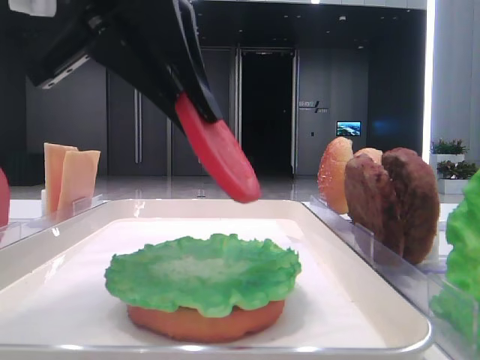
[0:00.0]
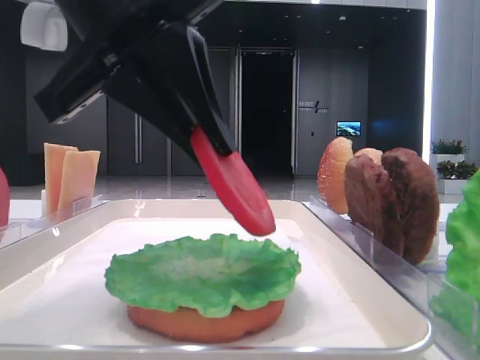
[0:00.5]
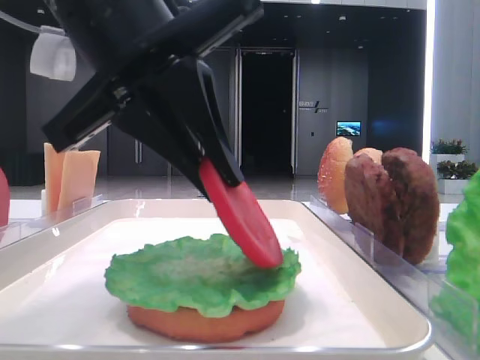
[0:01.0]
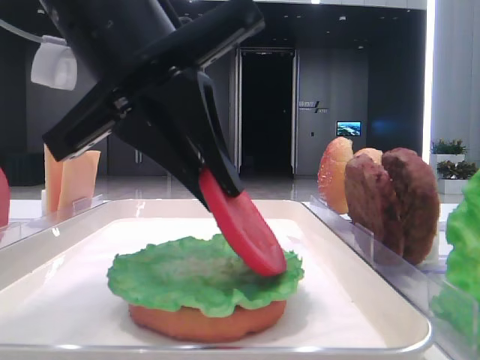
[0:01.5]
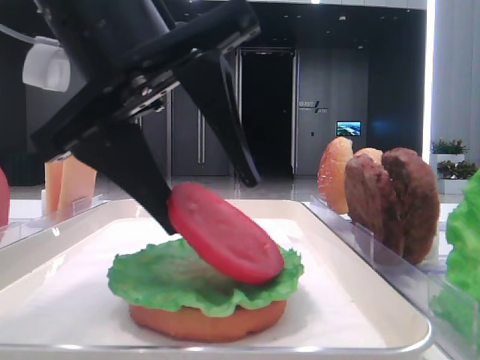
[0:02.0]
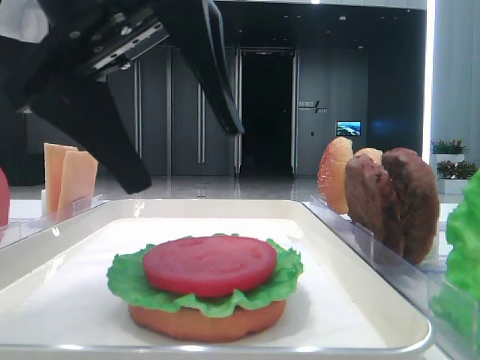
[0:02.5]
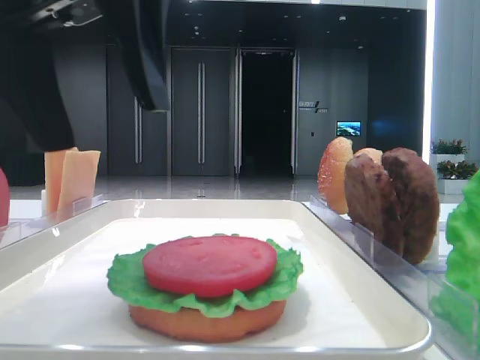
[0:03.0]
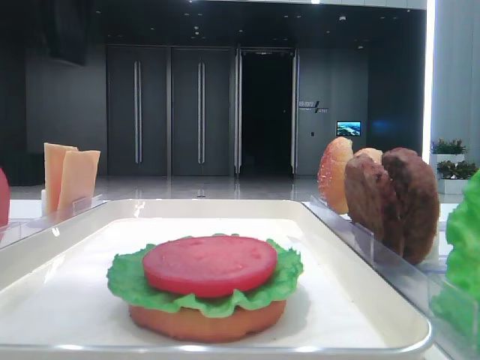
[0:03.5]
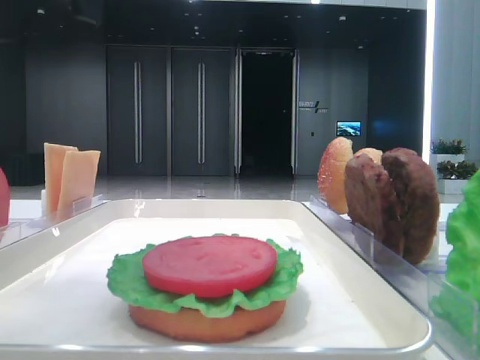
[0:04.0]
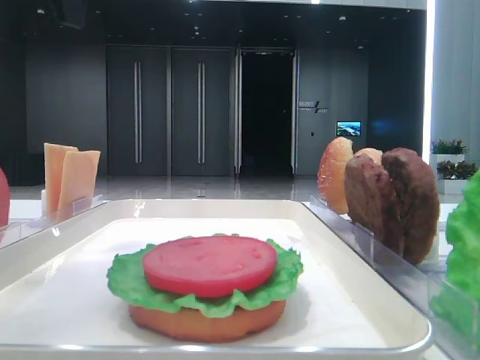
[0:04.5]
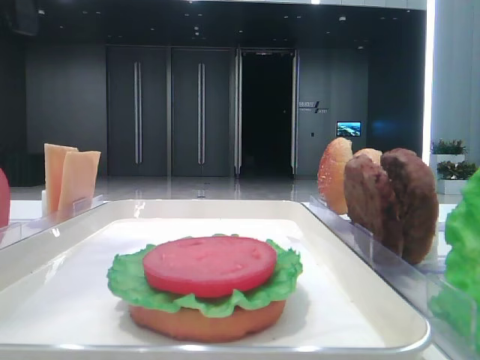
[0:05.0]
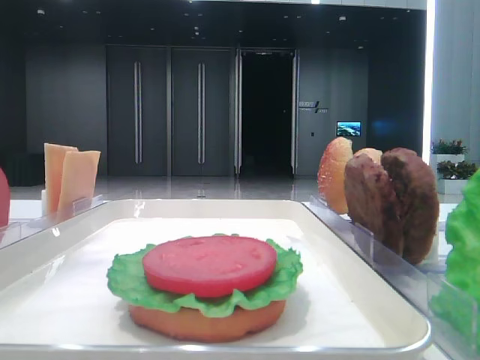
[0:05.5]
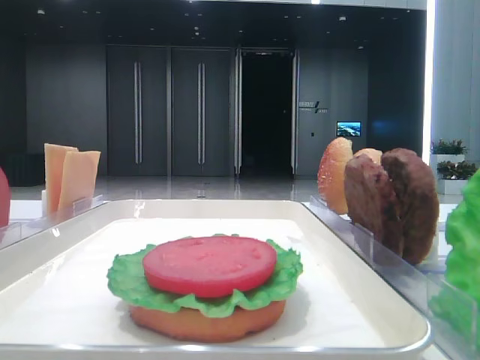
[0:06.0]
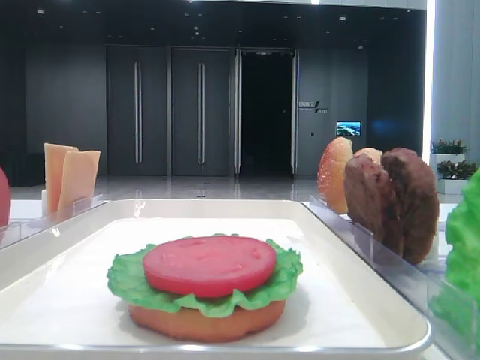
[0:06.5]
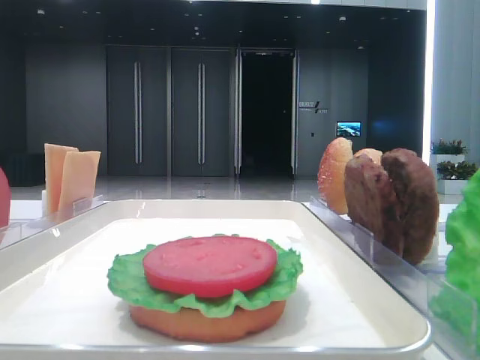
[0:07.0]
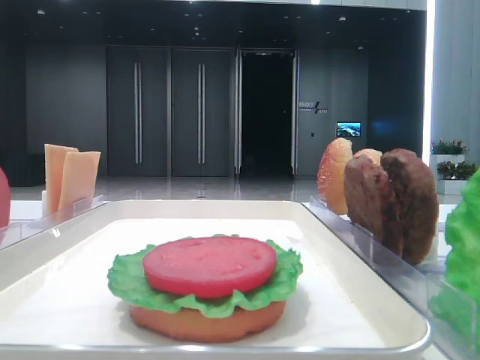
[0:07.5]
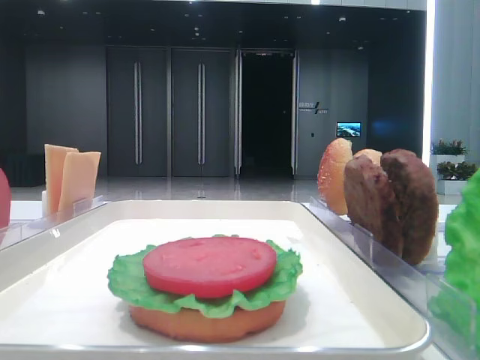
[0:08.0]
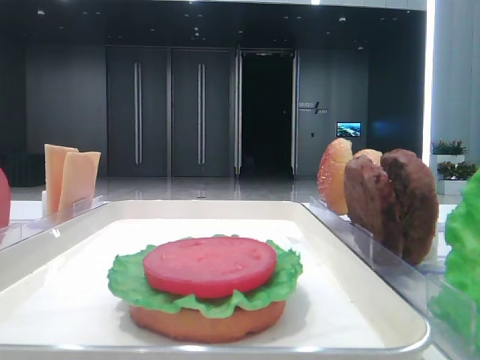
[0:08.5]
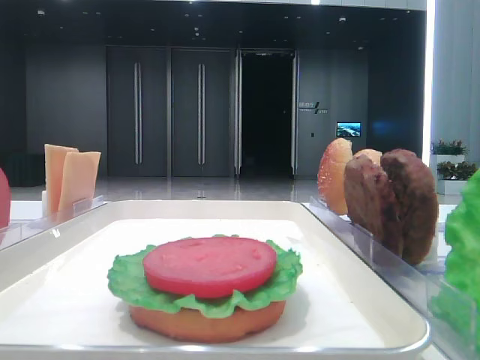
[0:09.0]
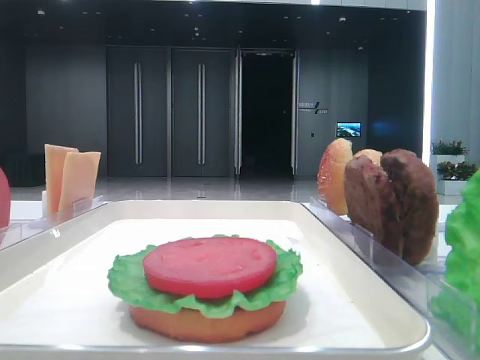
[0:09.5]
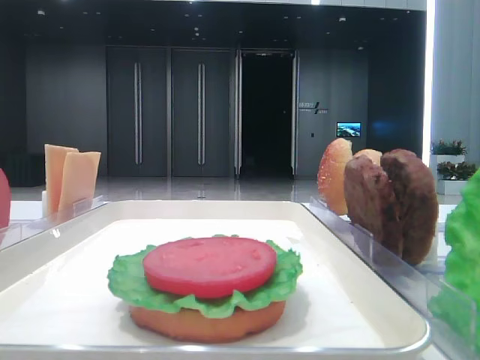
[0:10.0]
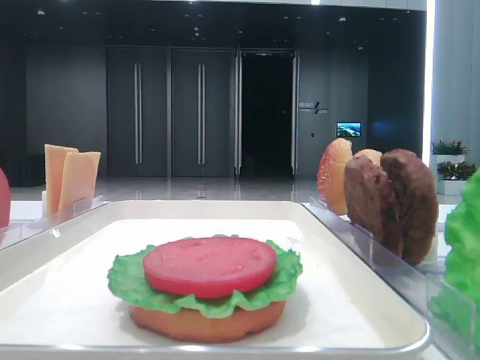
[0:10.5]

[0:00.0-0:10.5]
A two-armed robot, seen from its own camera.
Step, 0:00.0 to 0:02.0: Place the tomato slice on the lettuce leaf with the left hand.
0:00.0 to 0:02.0: The left gripper opens up.
0:02.0 to 0:04.0: The left gripper shifts approximately 10 cm upward.
0:04.0 to 0:06.5: The left gripper is displaced to the left by roughly 20 cm.
0:06.5 to 0:08.5: The left gripper travels backward by about 30 cm.

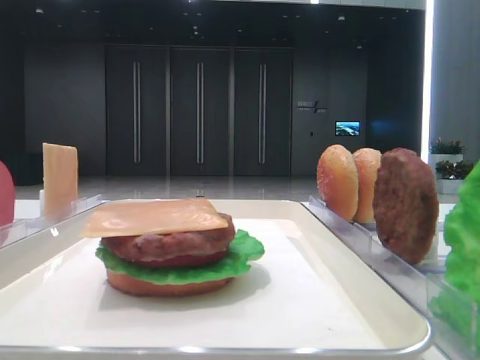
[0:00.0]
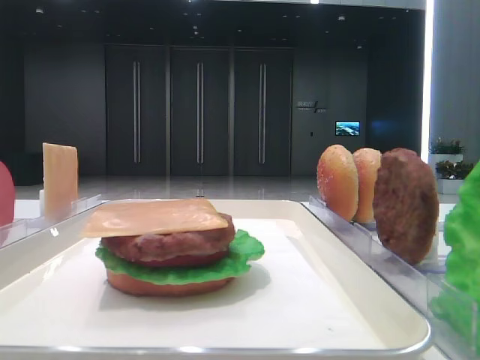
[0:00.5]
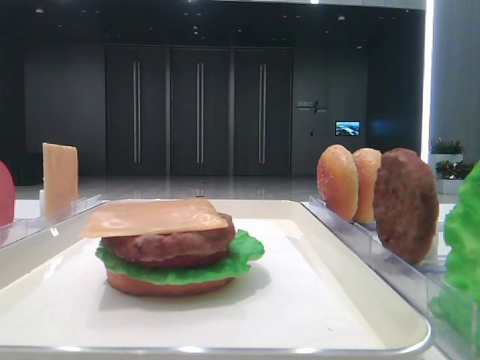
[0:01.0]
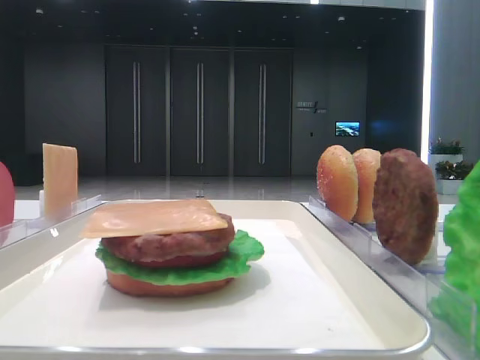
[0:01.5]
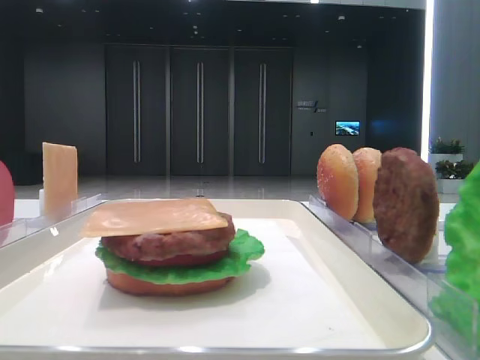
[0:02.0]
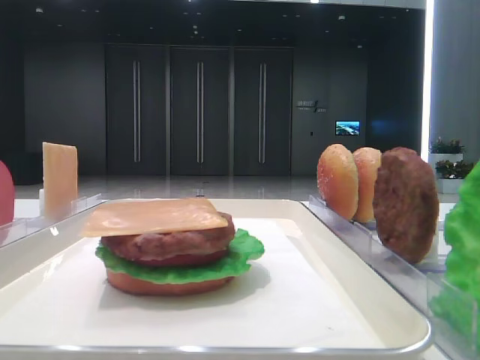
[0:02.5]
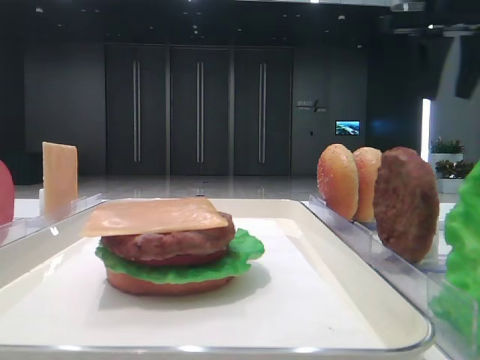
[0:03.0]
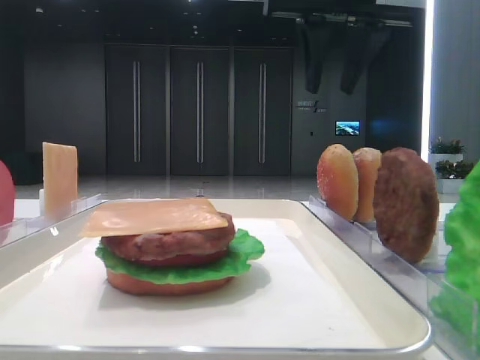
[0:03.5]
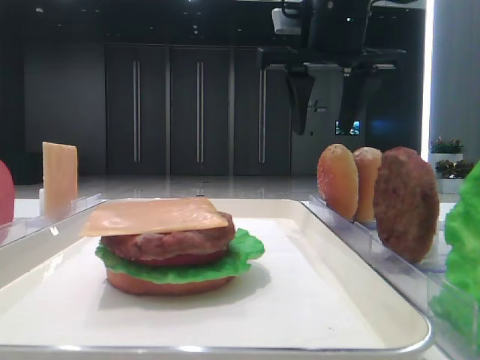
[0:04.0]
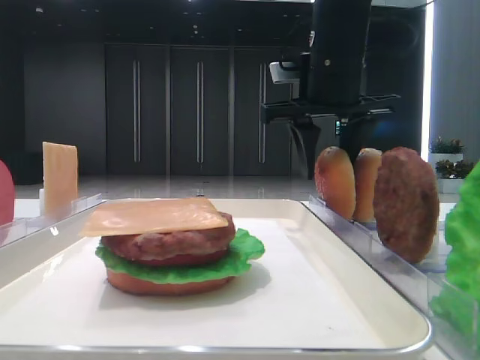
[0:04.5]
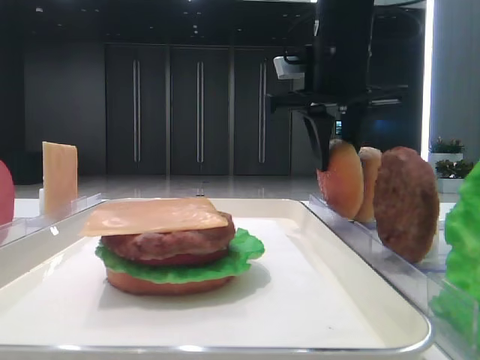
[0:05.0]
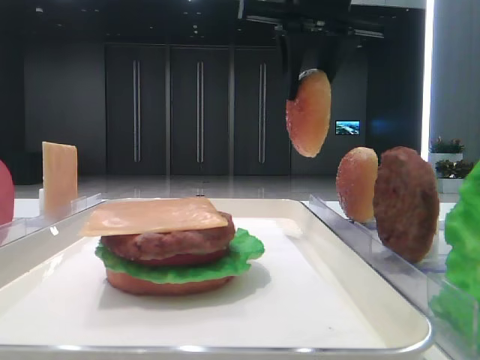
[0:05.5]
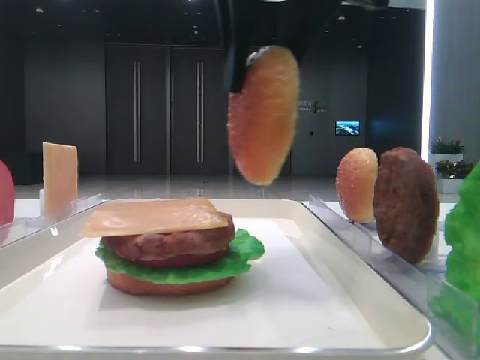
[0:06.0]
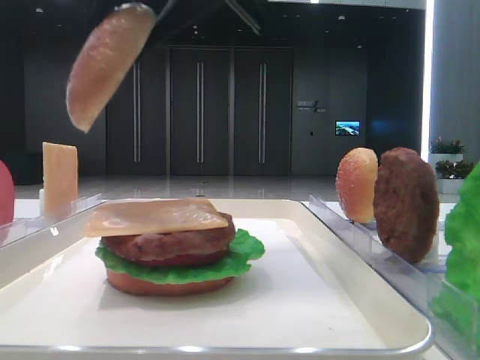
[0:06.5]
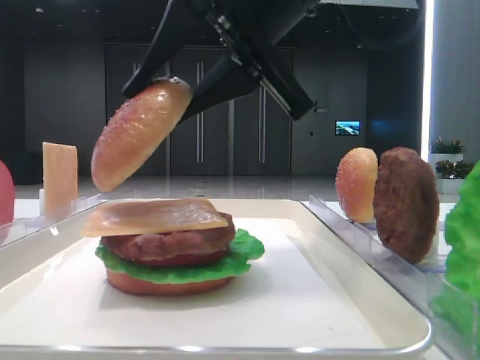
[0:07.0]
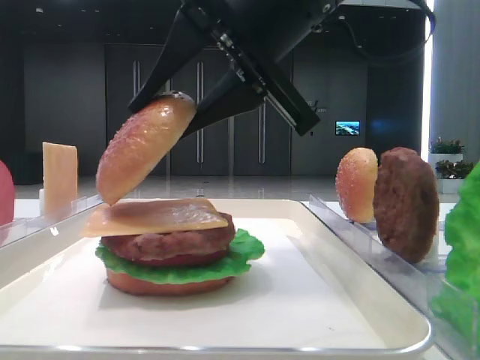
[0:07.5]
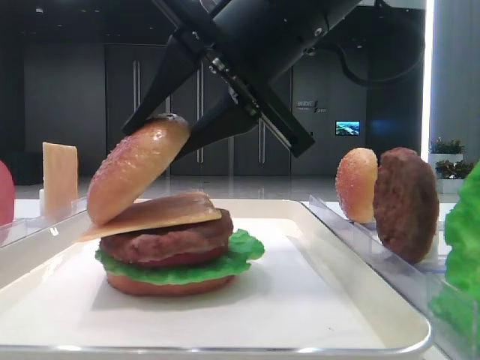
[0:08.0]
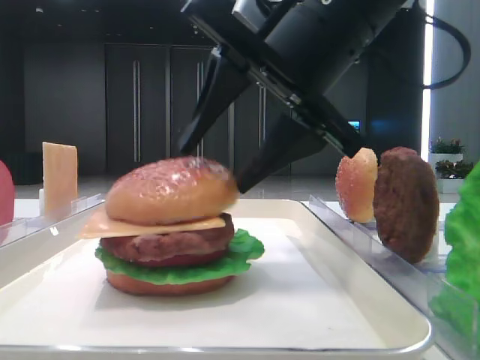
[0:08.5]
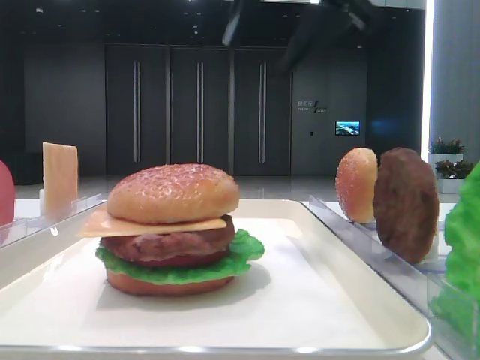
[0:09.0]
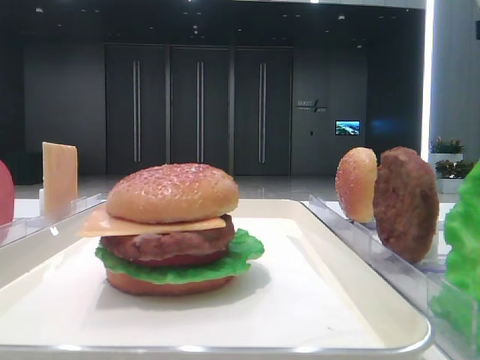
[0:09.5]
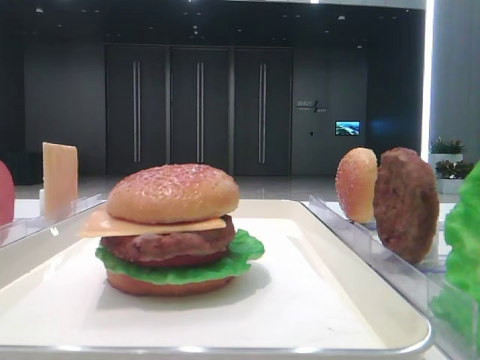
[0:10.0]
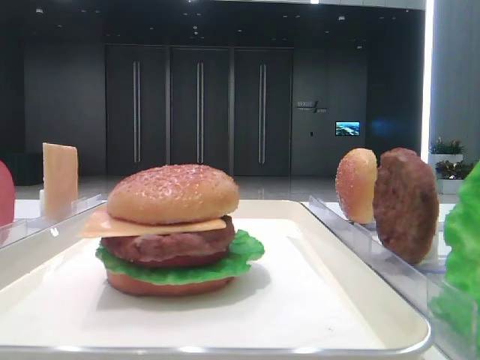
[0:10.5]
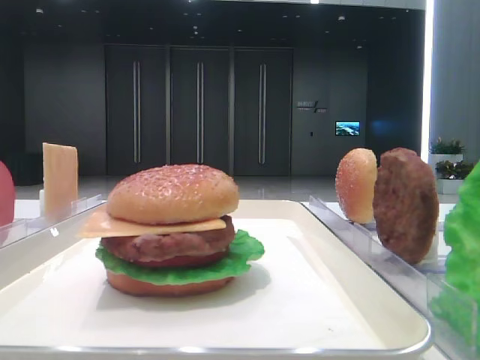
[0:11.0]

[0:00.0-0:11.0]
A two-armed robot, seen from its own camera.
Step, 0:00.0 to 0:04.5: Pick up the top bread slice with the right hand.
Step, 0:05.0 to 0:08.0: Place the top bread slice on the cheese with the right hand.
0:02.0 to 0:03.5: The right gripper goes approximately 25 cm to the left and forward.
0:03.5 to 0:05.5: The right gripper travels downward and back again, approximately 10 cm each way, and closes up.
0:05.5 to 0:07.5: The right gripper heads backward and downward, covering approximately 15 cm.
0:07.5 to 0:09.0: The right gripper moves upward and forward, some 10 cm, and opens.
0:09.0 to 0:11.0: The right gripper shifts about 40 cm backward and to the right.

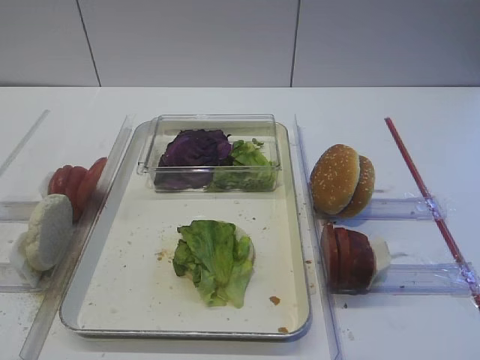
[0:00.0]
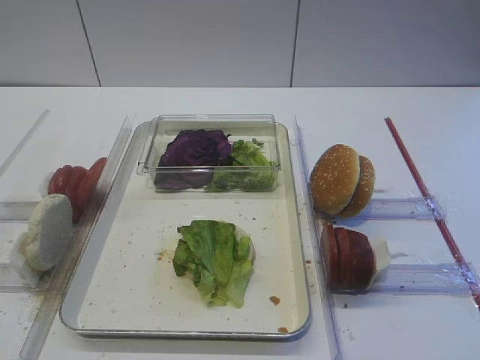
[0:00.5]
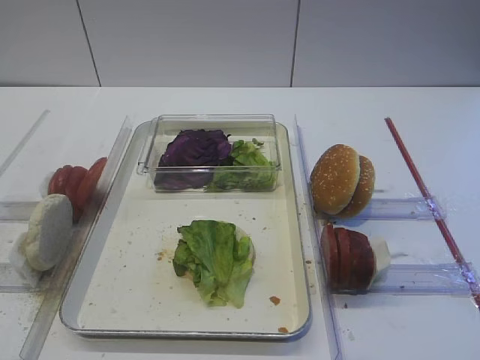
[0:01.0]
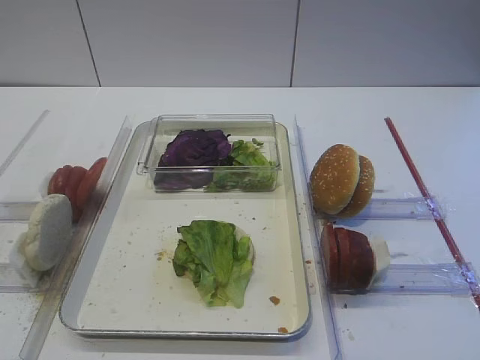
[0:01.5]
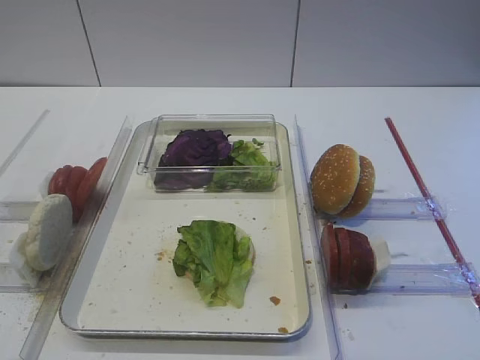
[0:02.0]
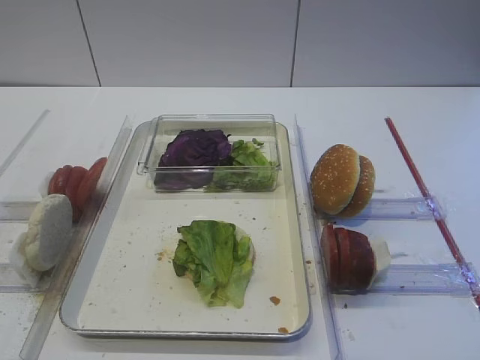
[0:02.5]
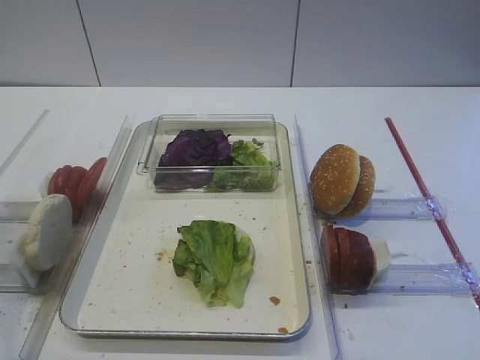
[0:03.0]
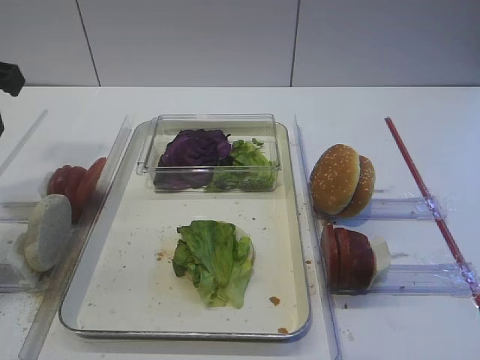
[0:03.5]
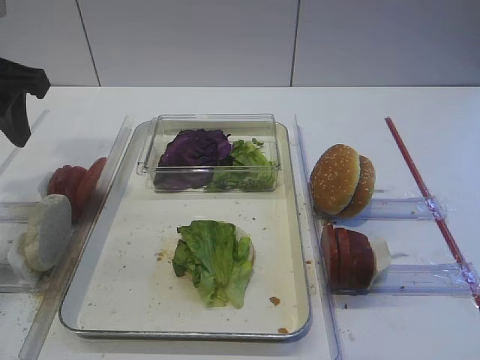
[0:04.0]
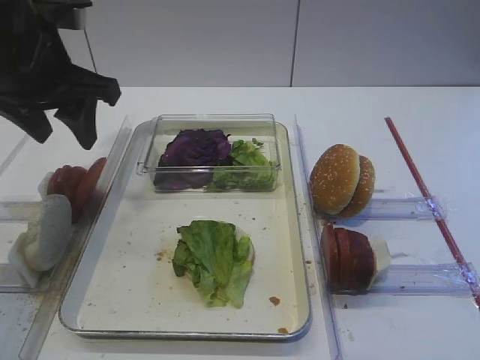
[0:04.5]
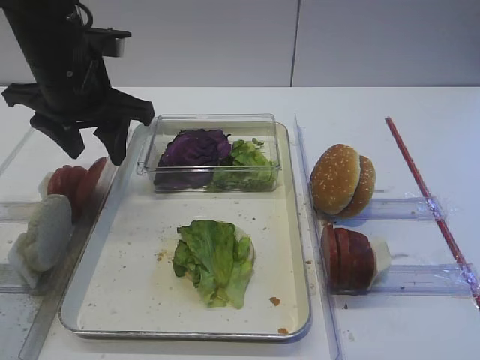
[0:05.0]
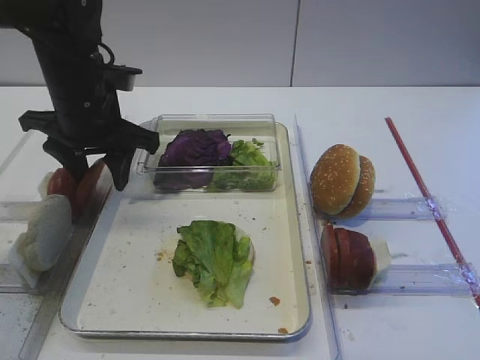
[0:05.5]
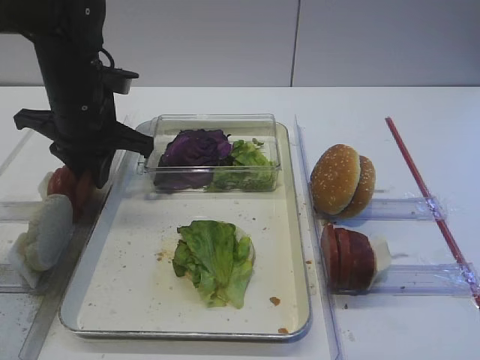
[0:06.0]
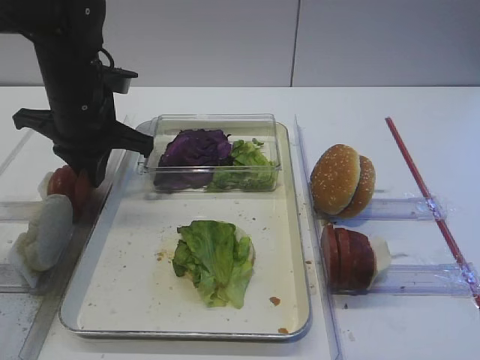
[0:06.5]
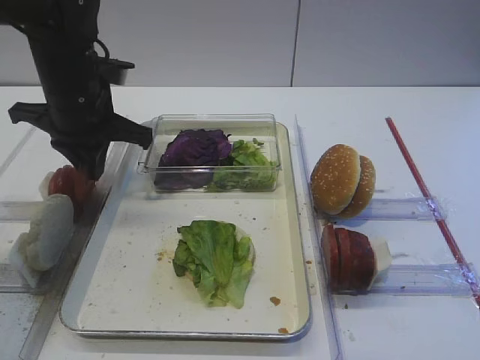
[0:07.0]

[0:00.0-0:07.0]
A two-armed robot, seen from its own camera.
0:02.0 to 0:03.5: The left gripper moves forward, some 25 cm.
0:03.5 to 0:05.0: The left gripper travels to the right, forward and downward by about 15 cm.
0:05.0 to 0:07.0: The left gripper closes.
